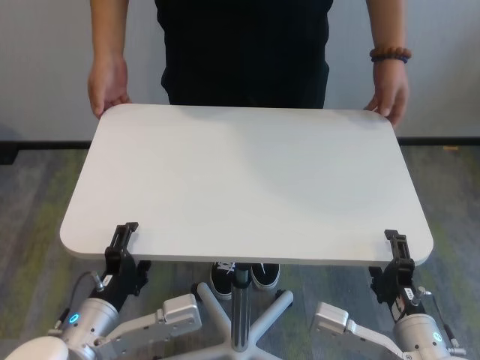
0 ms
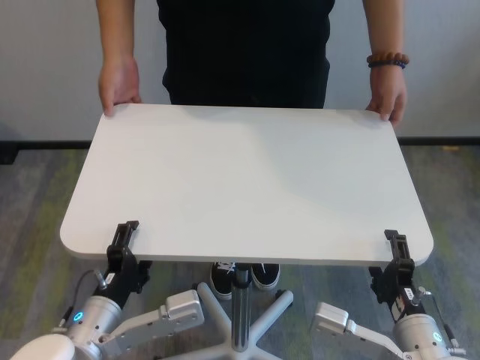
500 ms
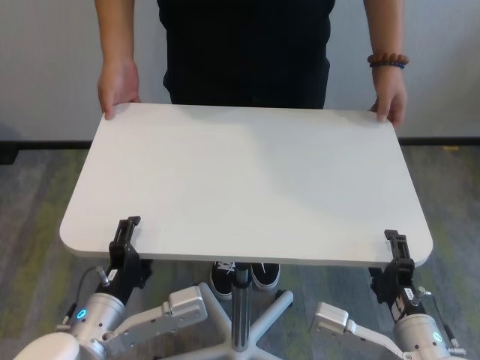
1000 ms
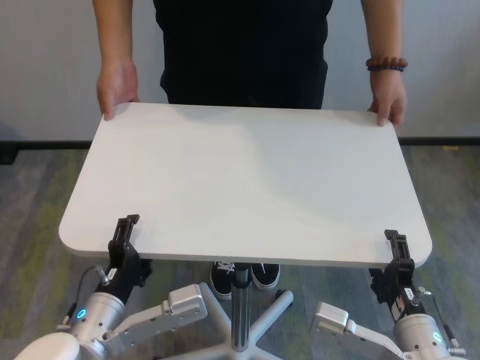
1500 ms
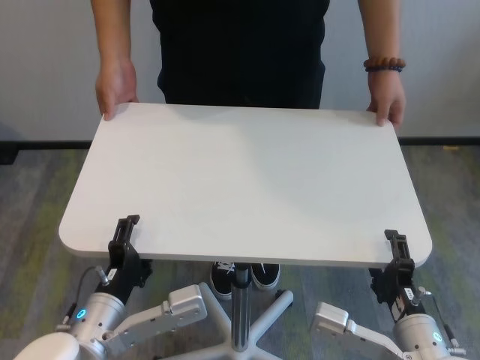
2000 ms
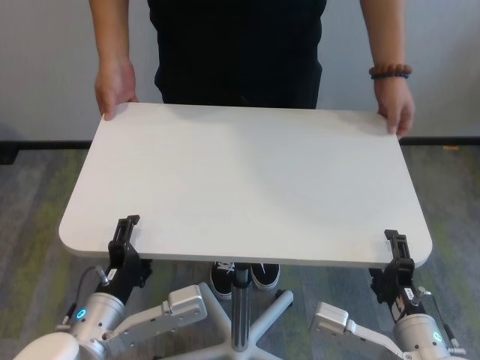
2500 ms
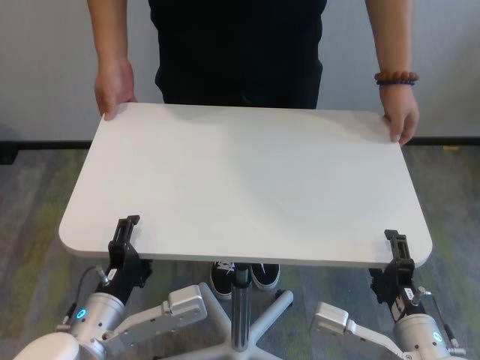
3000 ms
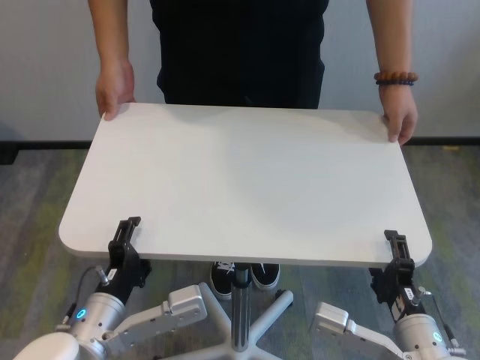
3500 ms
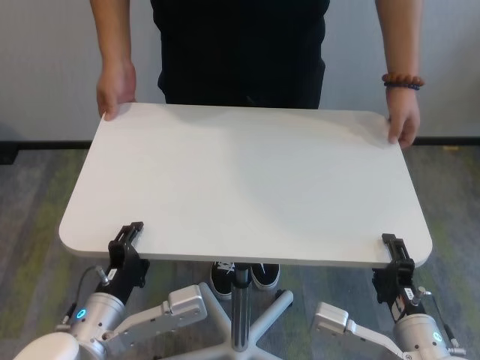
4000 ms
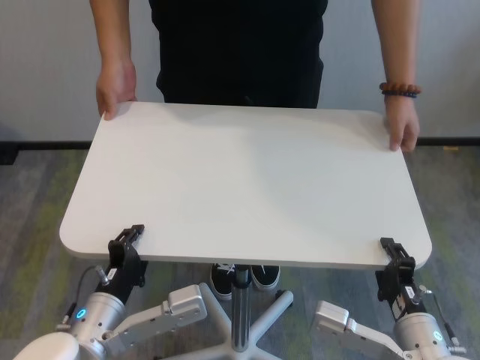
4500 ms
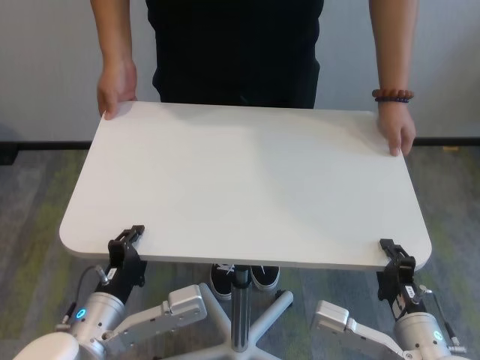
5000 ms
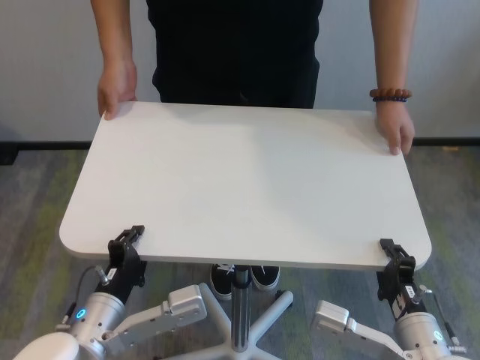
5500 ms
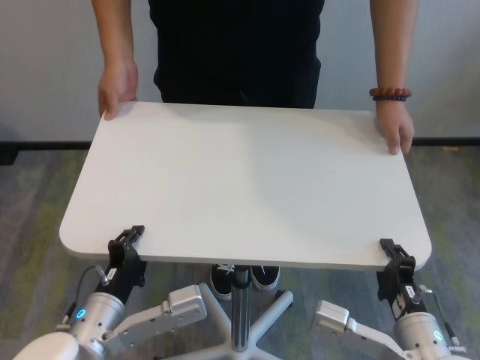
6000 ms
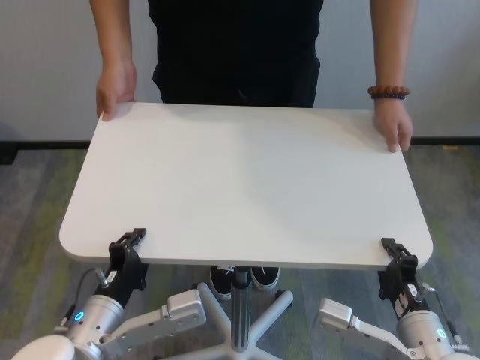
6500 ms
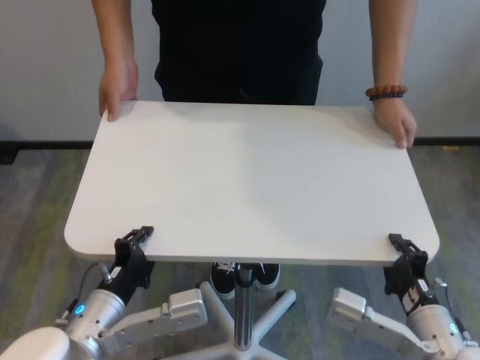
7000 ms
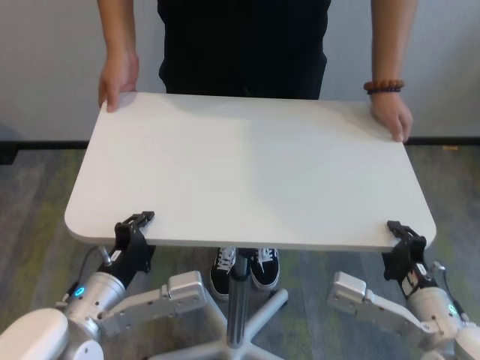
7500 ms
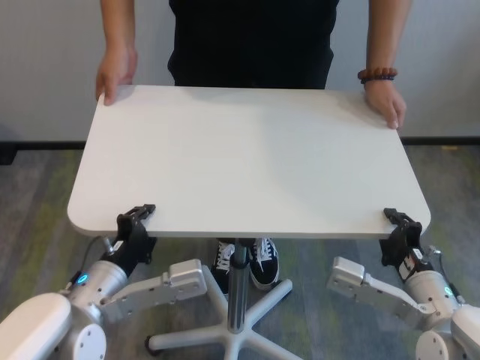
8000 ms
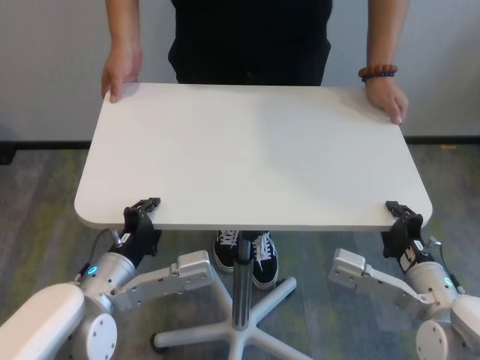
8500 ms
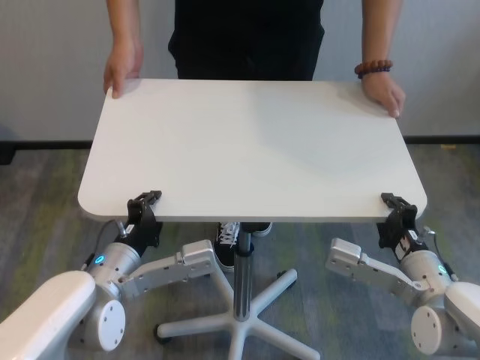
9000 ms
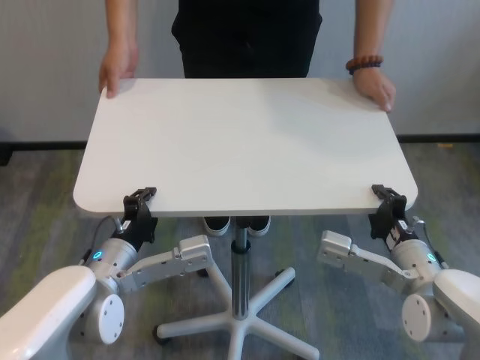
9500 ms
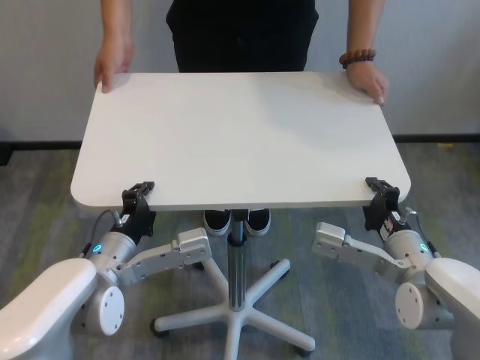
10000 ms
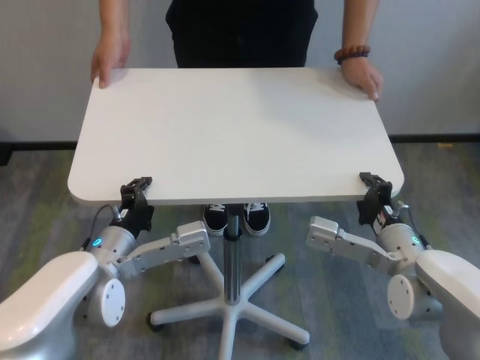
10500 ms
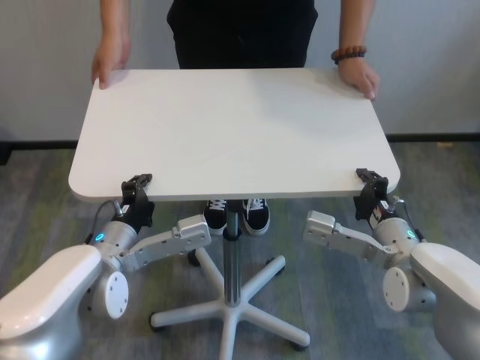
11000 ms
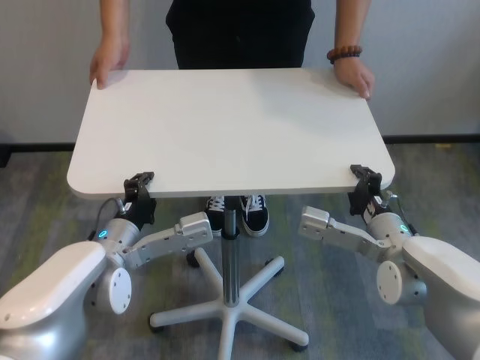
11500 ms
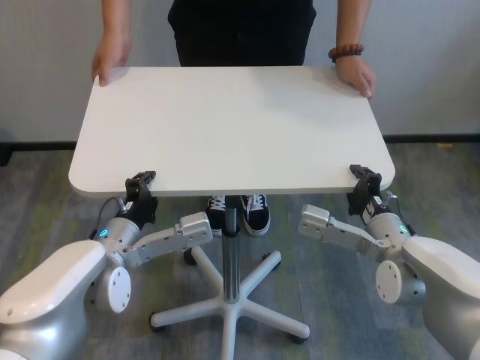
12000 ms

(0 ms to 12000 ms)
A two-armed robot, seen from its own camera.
Task of the whole recording: human machine collaborative table moving.
Step, 0 ms - 5500 ms: Grasp the table with both grippers.

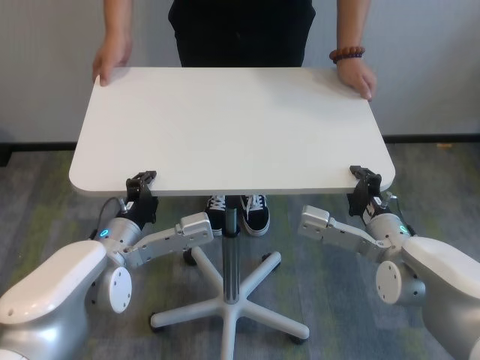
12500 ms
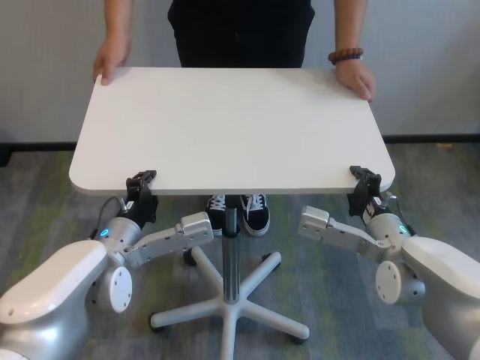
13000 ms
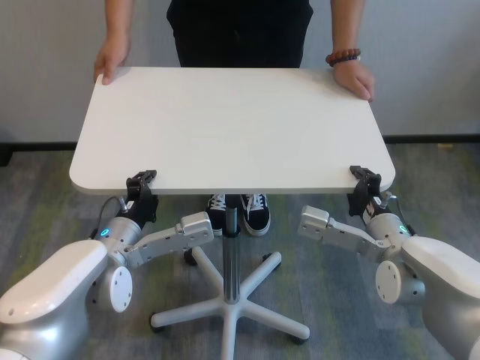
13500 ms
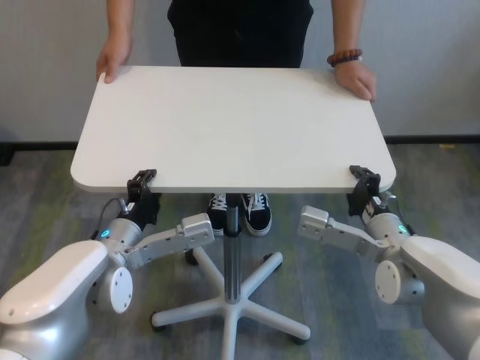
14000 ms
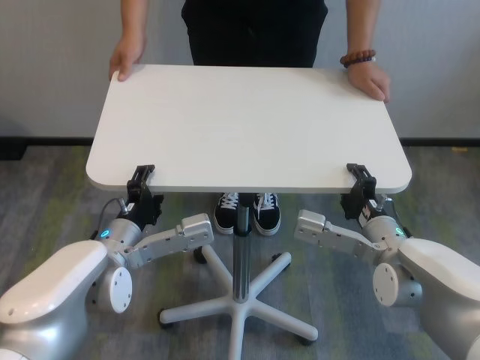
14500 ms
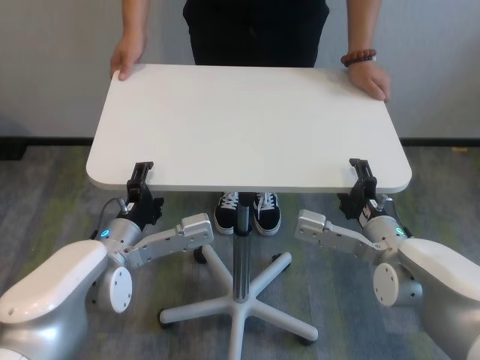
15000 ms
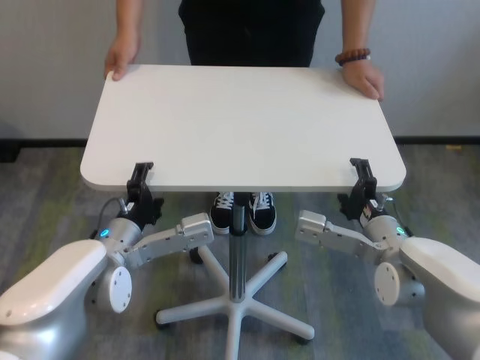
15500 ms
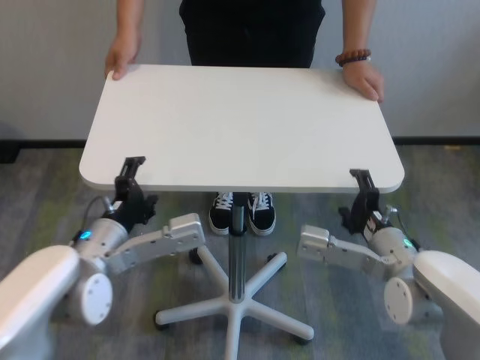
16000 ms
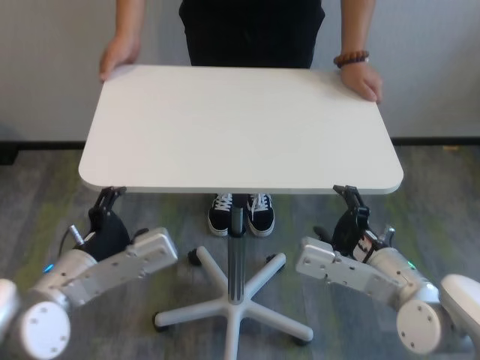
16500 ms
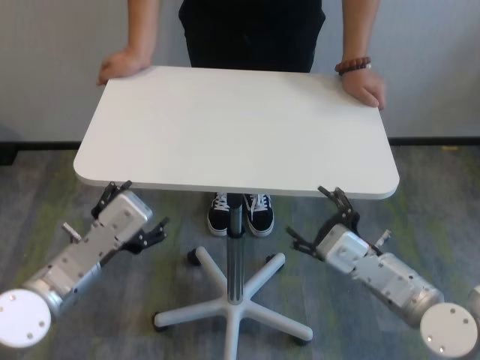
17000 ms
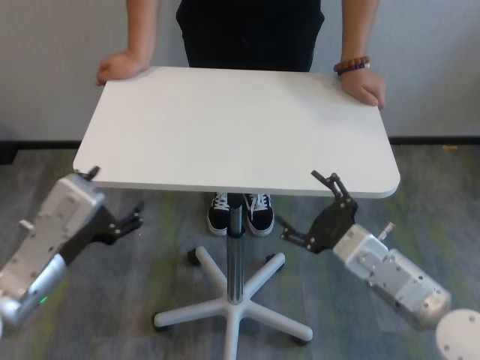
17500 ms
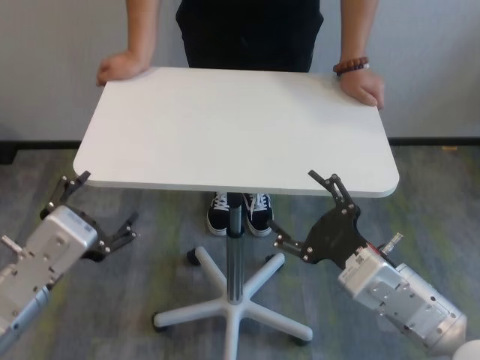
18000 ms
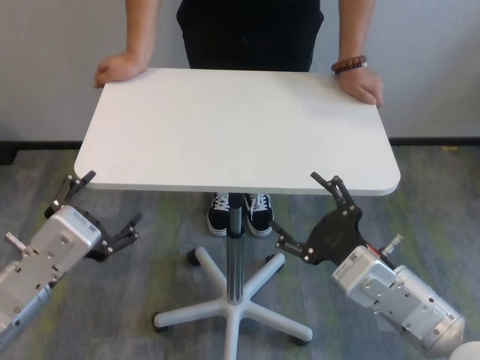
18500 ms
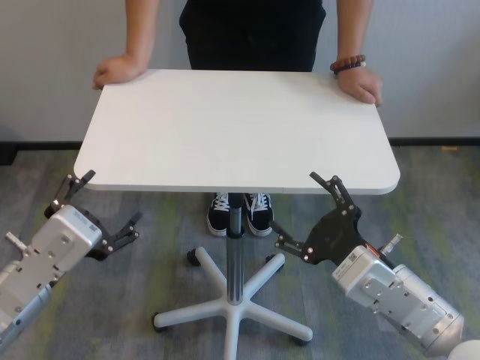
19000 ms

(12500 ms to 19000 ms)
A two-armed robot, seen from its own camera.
Task of the whole recording: human machine collaborative table moving.
Step, 12500 ms - 15500 ms: Move the table forward with both grippers.

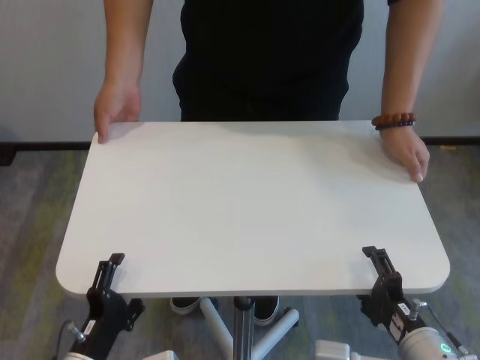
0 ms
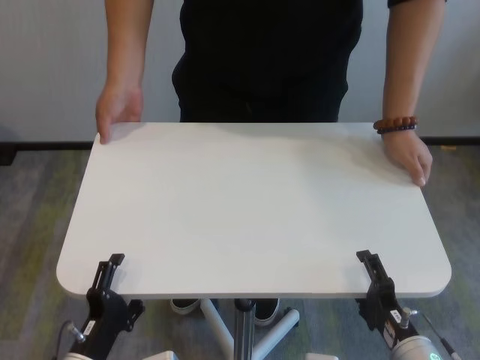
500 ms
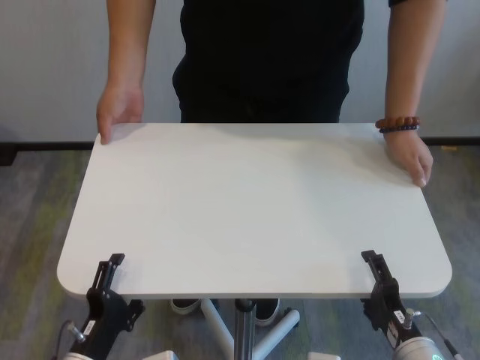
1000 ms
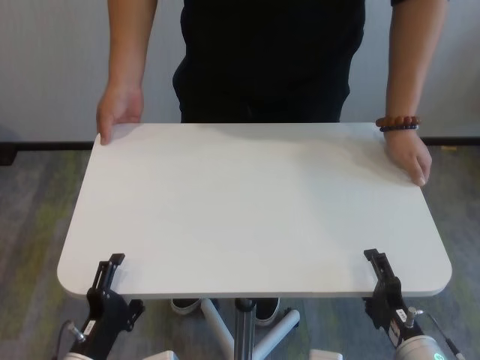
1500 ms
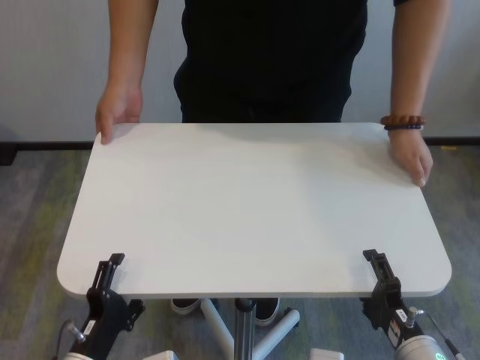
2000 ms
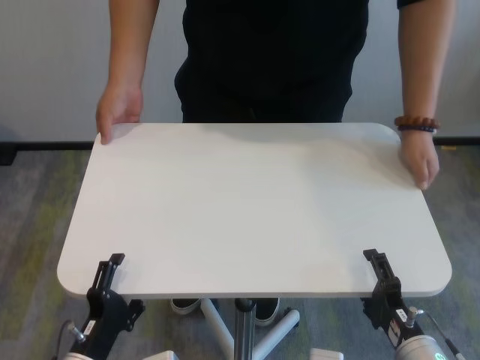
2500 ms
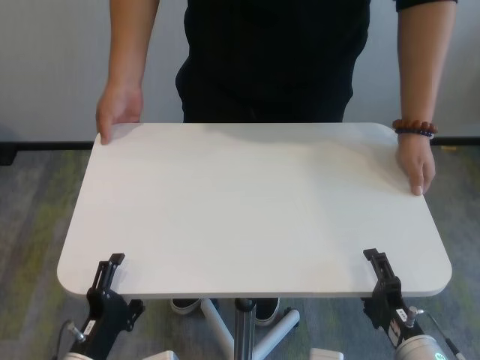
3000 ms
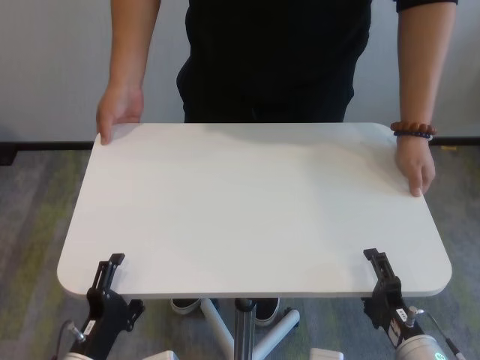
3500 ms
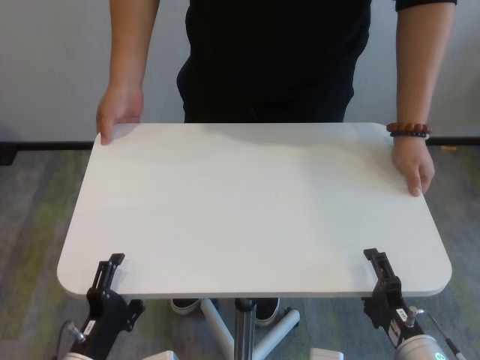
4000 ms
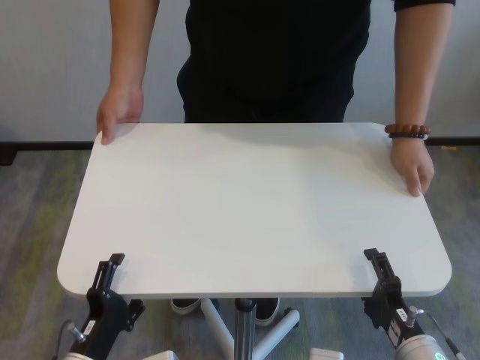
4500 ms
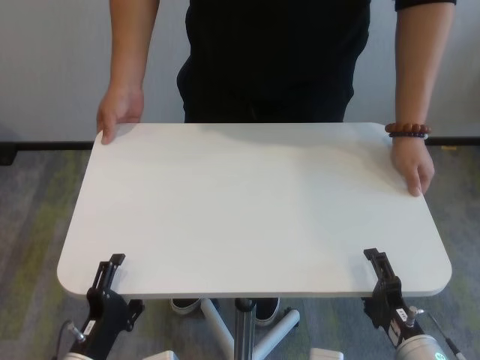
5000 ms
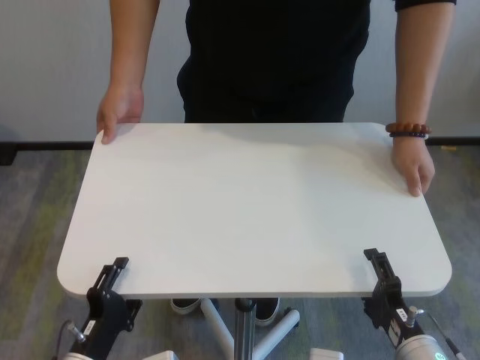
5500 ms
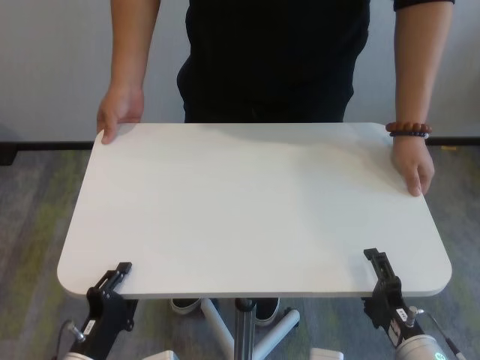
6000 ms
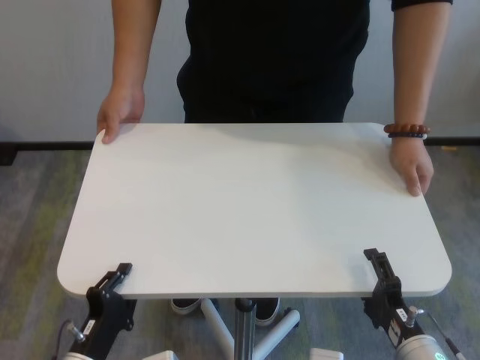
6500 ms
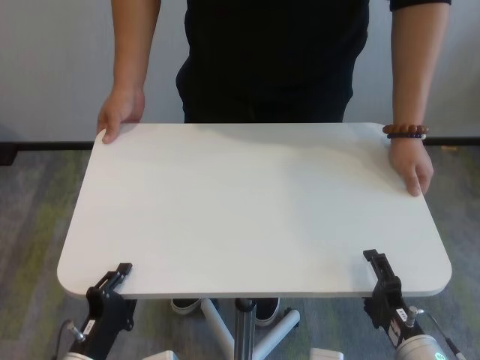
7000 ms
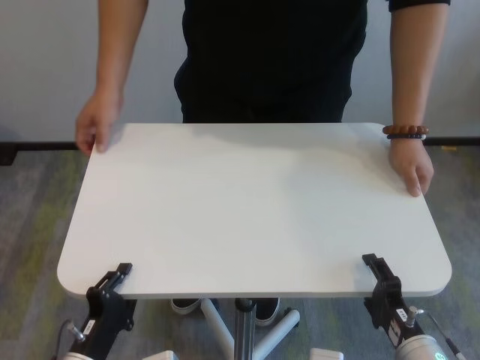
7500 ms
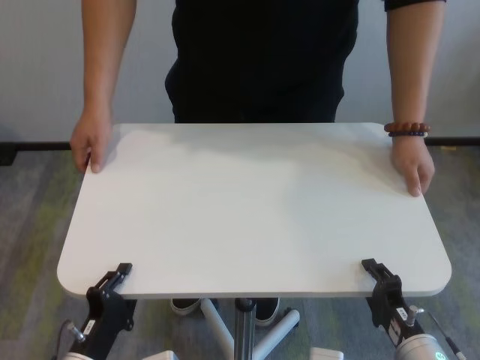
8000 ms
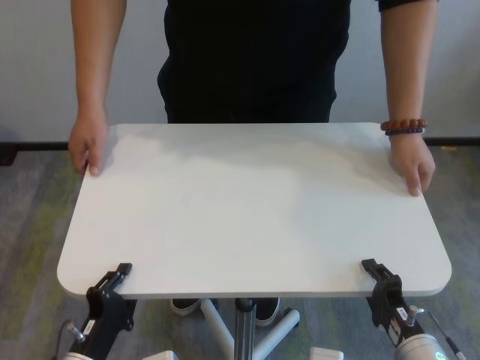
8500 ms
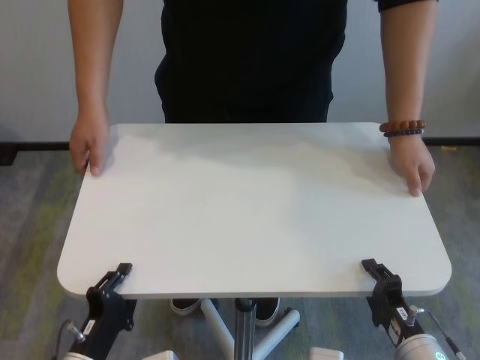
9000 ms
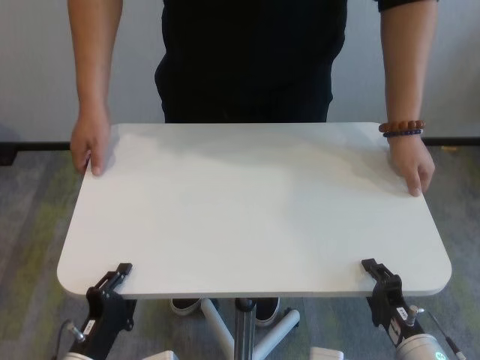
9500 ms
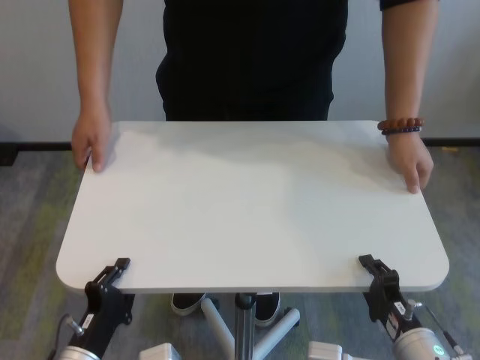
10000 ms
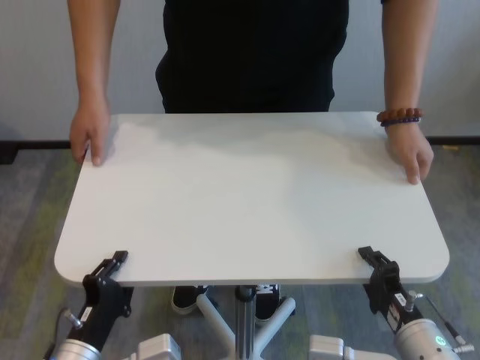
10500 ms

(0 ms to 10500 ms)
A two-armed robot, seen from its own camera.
Task of the whole recording: human machine collaborative table moving.
Step, 0 ms - 9000 ms: Grasp the table with both grippers.
